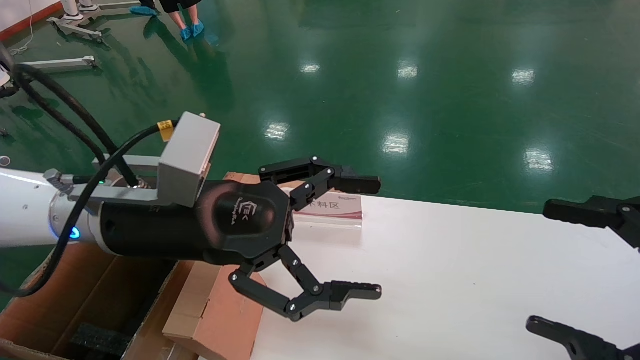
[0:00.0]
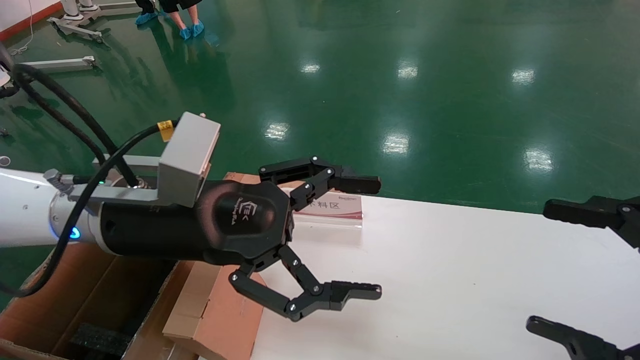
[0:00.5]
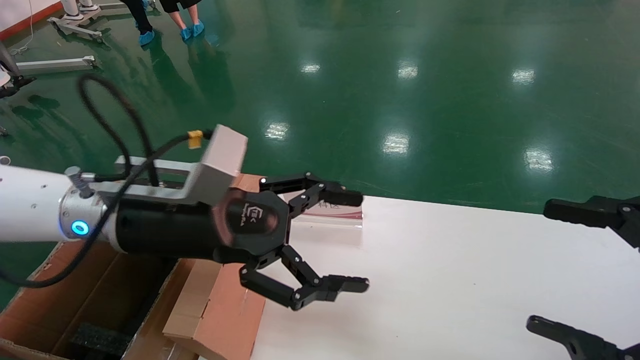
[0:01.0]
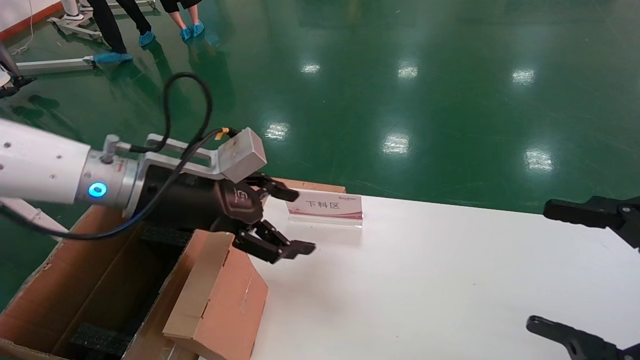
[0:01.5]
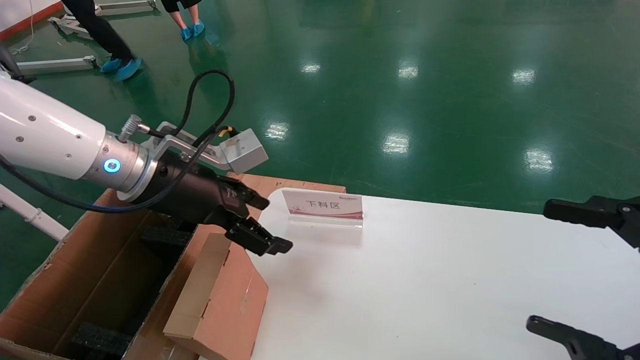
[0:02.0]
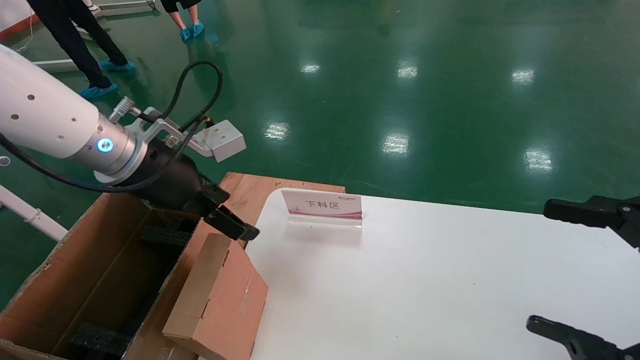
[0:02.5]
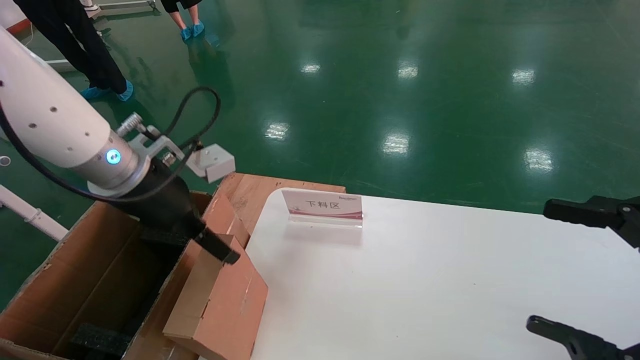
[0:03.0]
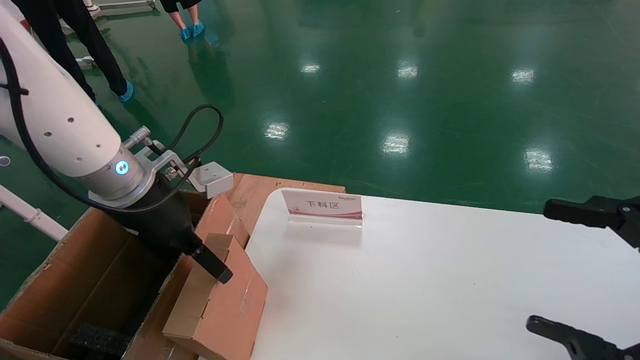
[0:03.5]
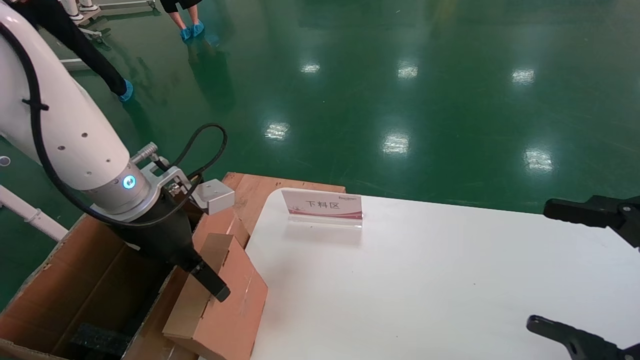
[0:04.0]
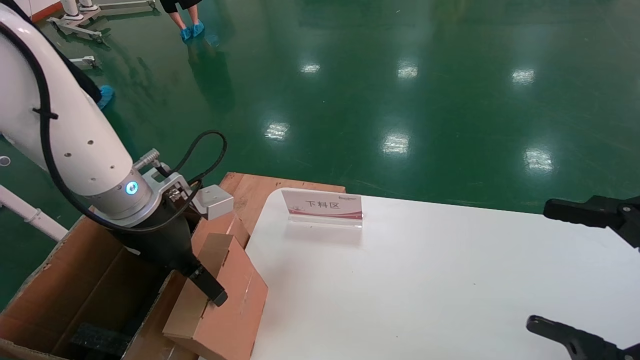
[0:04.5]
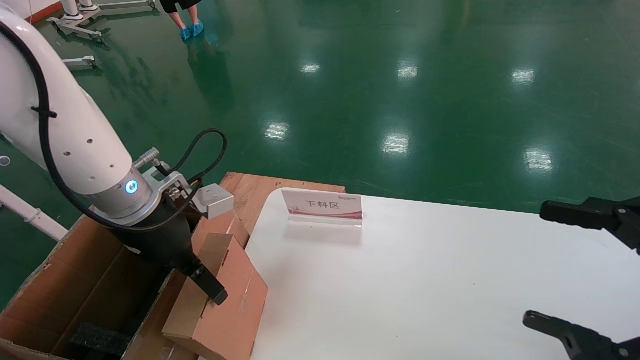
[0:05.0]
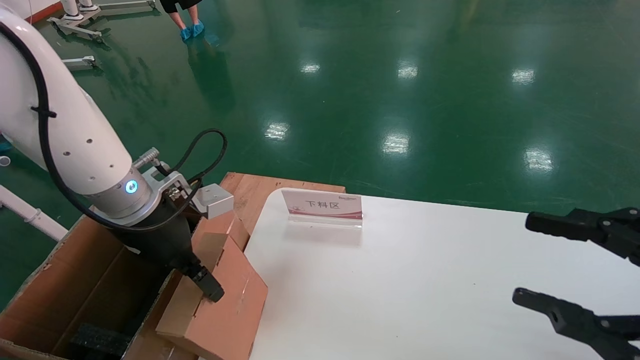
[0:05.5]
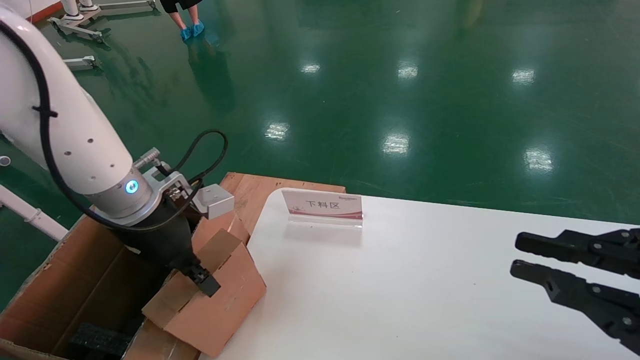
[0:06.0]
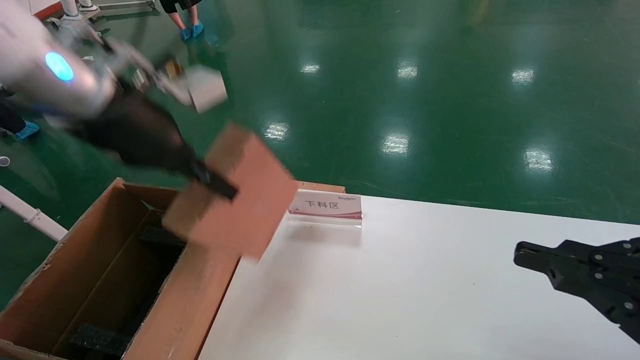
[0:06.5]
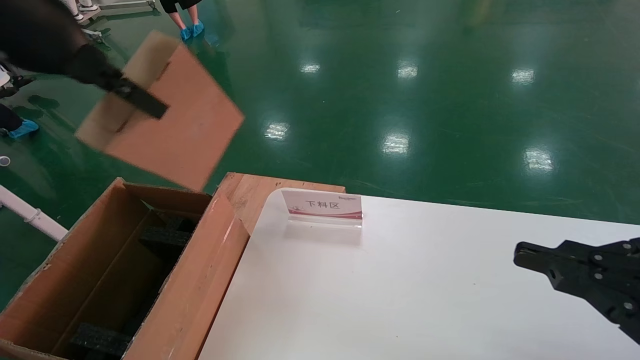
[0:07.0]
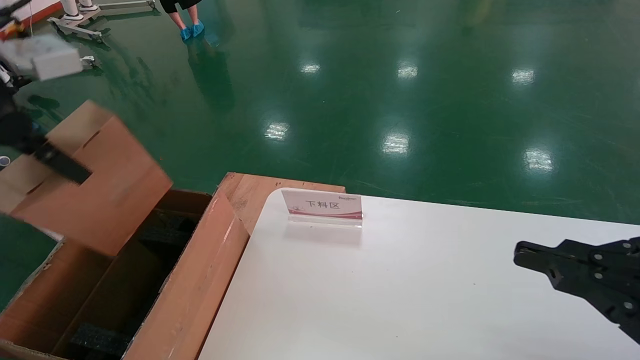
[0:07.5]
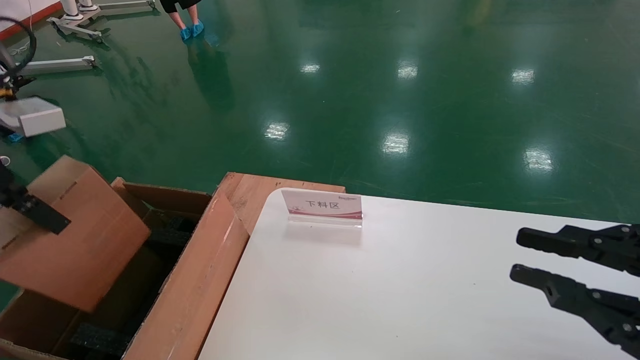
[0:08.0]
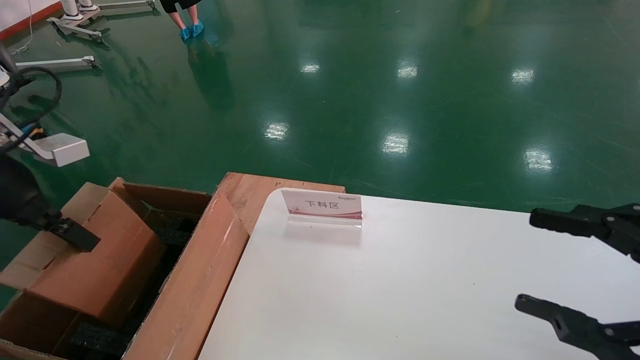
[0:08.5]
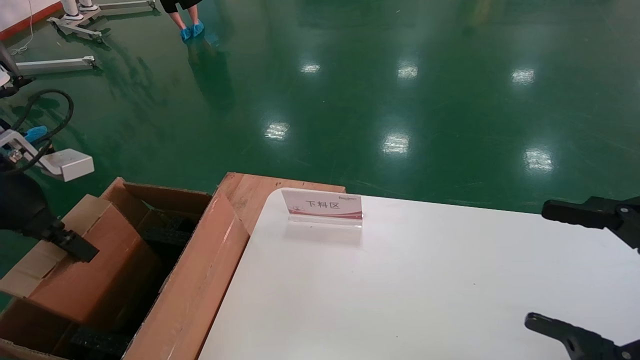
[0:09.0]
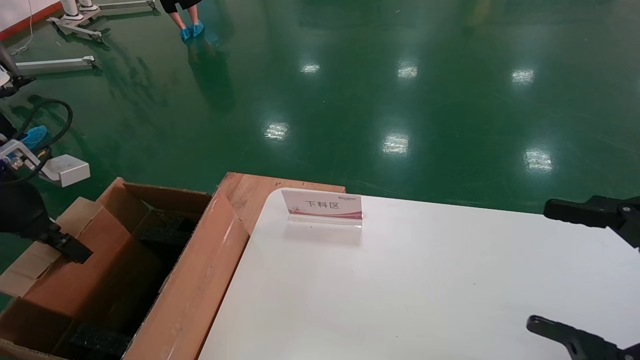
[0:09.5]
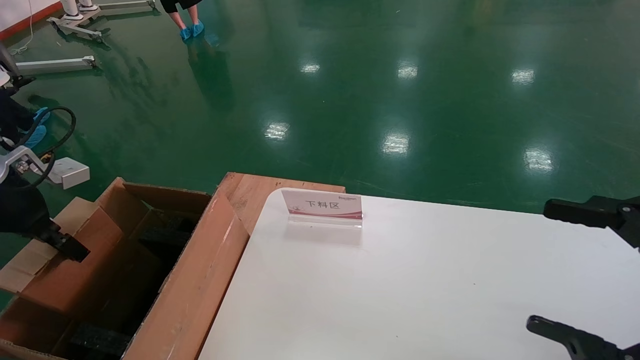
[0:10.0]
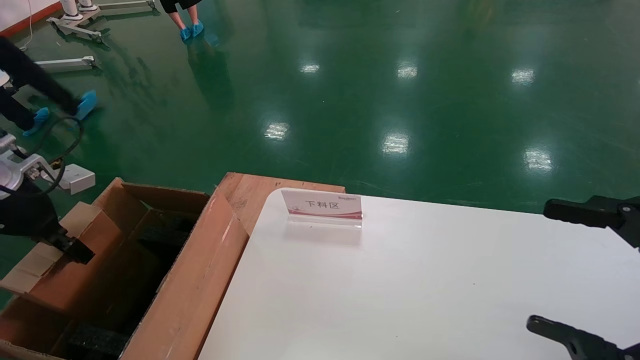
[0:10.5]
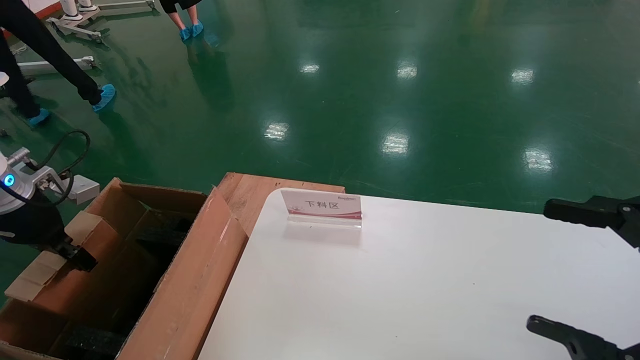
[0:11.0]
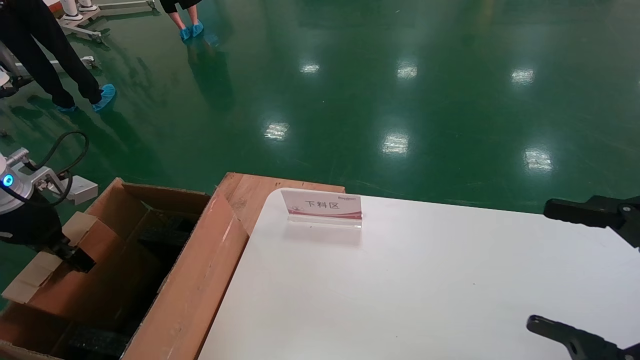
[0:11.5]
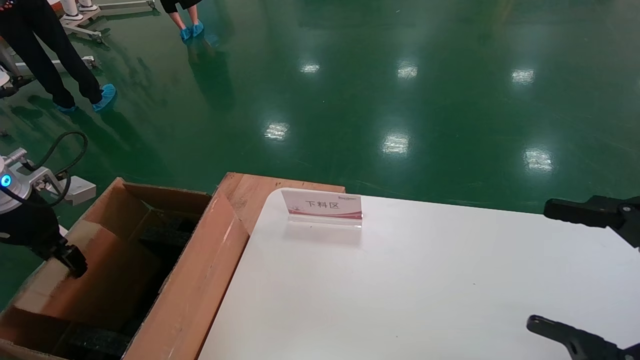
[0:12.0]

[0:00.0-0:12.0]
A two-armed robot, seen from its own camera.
Task of the whole recording: pick up the small cardboard box and load it into the large cardboard box.
Step, 0:01.0 to 0:05.5: Pick up the mouse and power cord box.
0:00.0 to 0:02.0: The left gripper shifts roughly 5 cm forward.
0:04.0 to 0:06.0: The left gripper closes up. Meanwhile the right gripper closes.
0:06.0 to 0:08.0: The left gripper goes roughly 20 cm to the left, upward and backward.
0:08.0 to 0:10.0: The left gripper travels downward, to the left and forward by about 15 cm; the right gripper opens up.
0:10.0 to 0:12.0: The left gripper ends up approximately 5 cm from where it was.

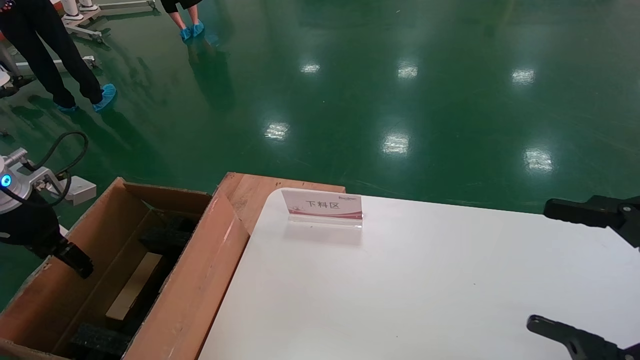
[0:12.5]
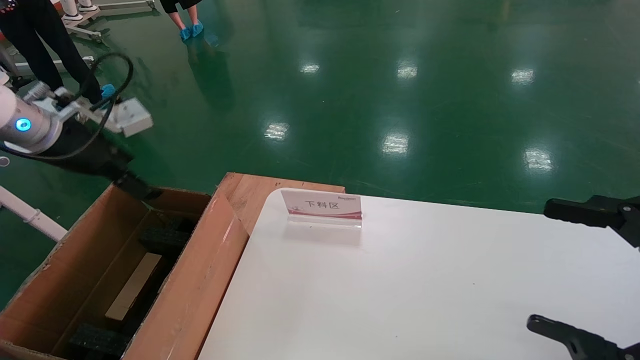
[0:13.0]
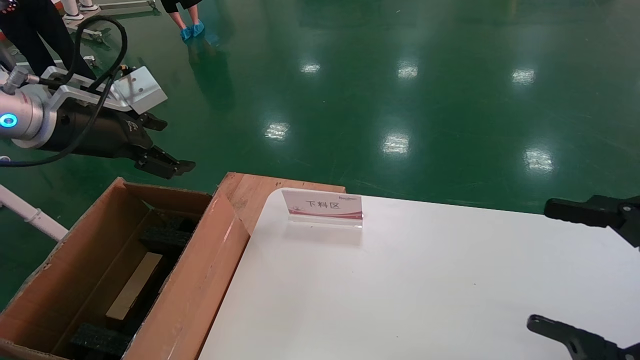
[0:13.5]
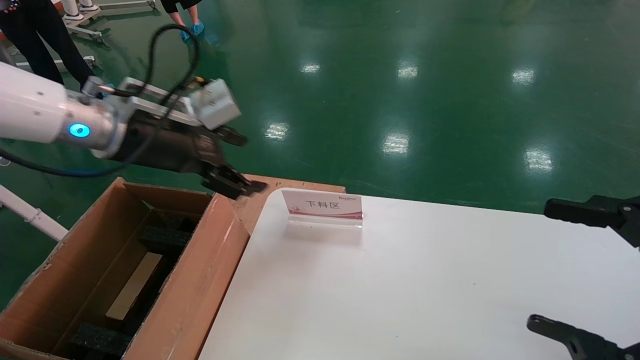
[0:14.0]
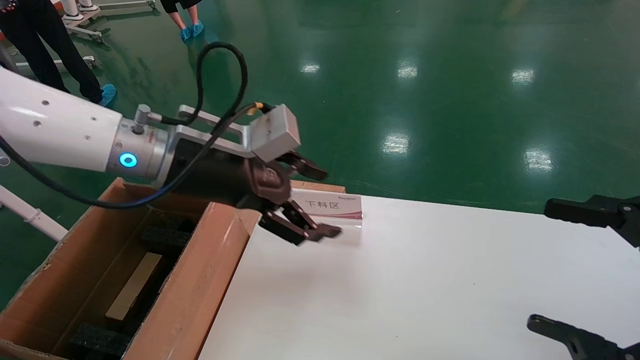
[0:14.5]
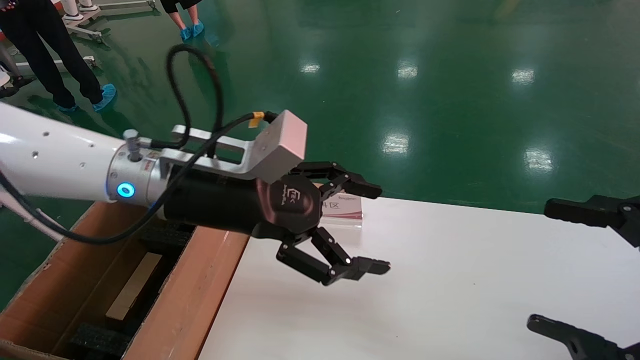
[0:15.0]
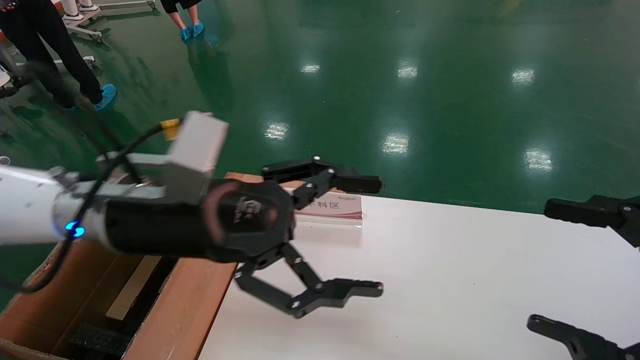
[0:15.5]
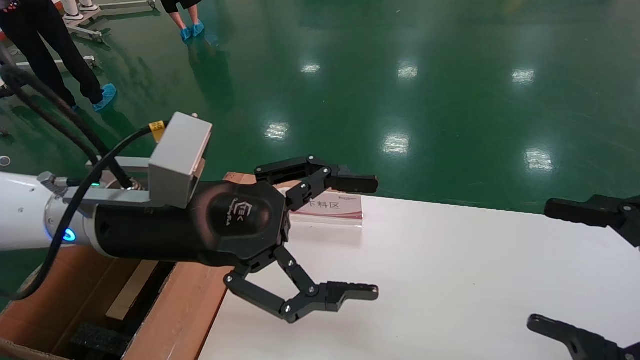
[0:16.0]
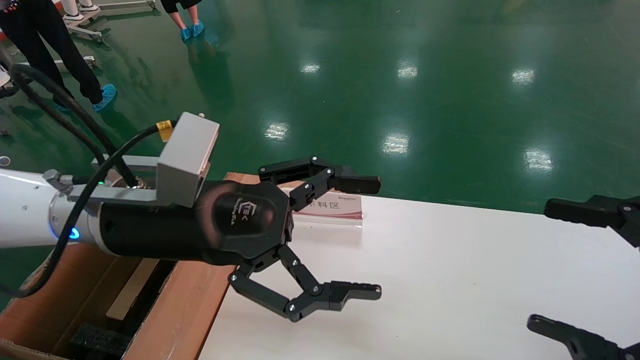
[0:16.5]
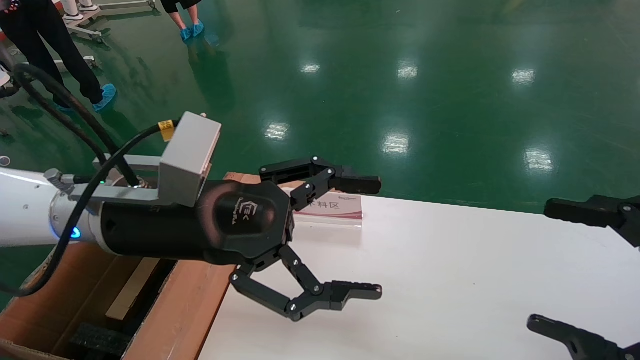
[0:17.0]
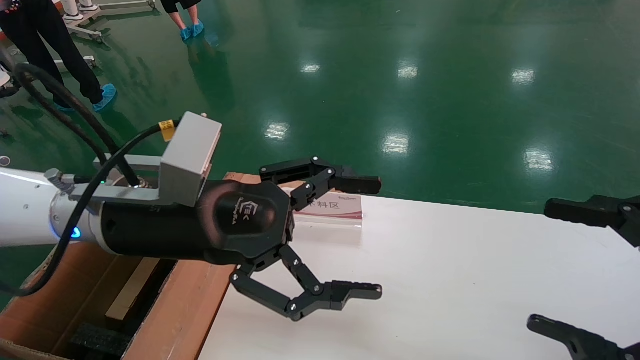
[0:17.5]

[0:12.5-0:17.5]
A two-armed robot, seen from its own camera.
Task of the whole recording: pick up the small cardboard box and load it into the large cardboard box.
0:12.5 to 0:15.0: The left gripper is displaced to the right by some 30 cm.
0:15.0 to 0:17.5: The grippers stay close to where they were, moving slightly.
